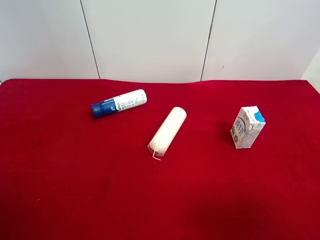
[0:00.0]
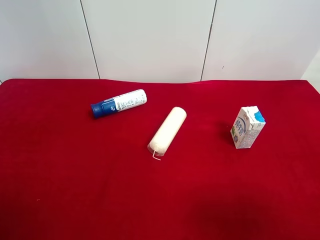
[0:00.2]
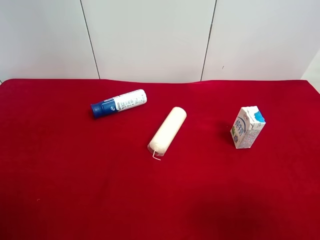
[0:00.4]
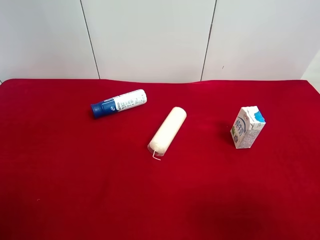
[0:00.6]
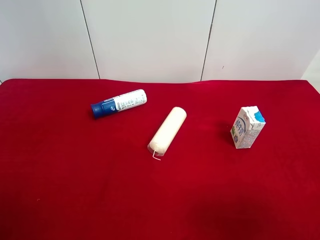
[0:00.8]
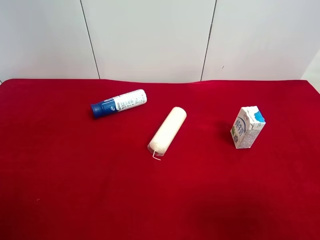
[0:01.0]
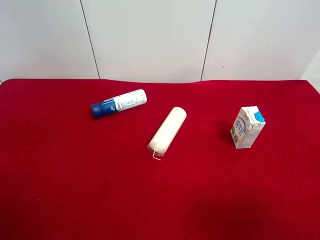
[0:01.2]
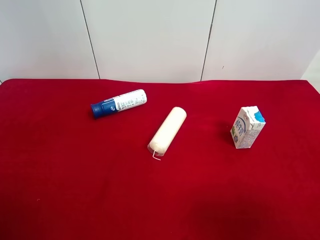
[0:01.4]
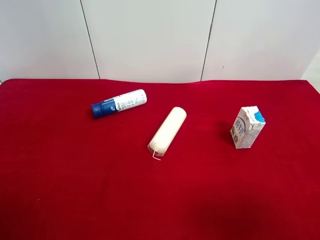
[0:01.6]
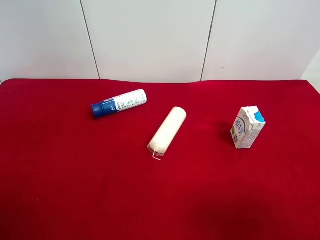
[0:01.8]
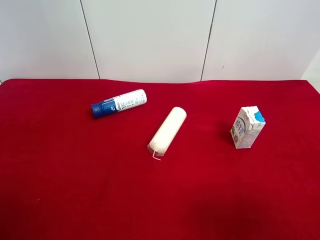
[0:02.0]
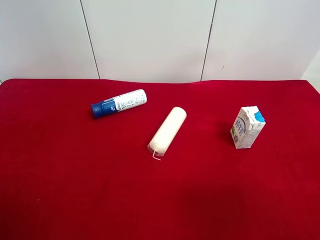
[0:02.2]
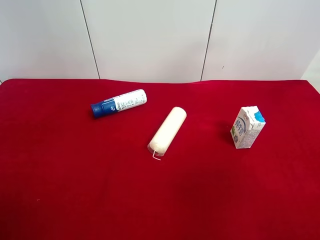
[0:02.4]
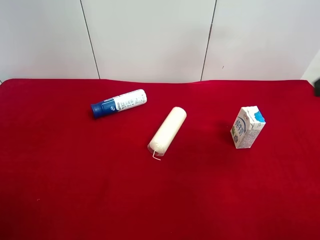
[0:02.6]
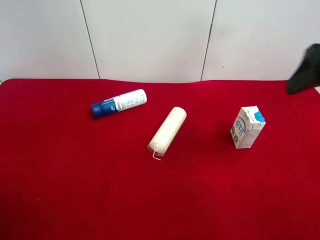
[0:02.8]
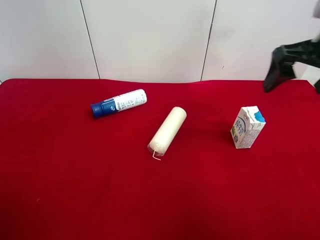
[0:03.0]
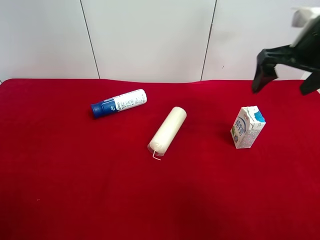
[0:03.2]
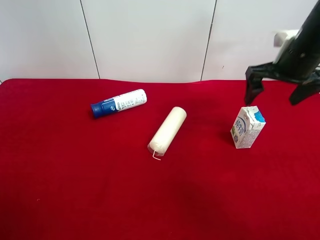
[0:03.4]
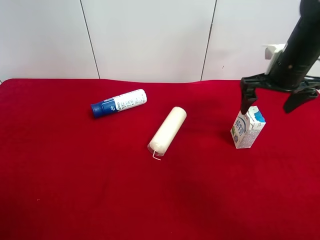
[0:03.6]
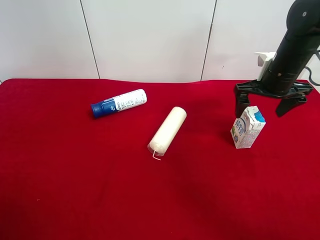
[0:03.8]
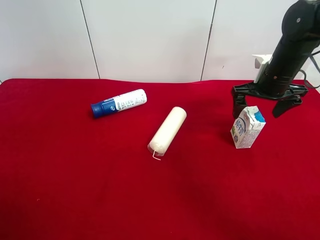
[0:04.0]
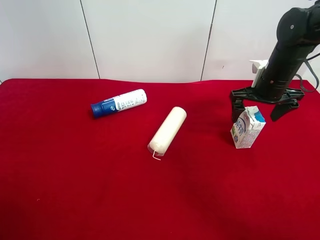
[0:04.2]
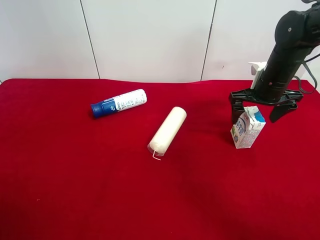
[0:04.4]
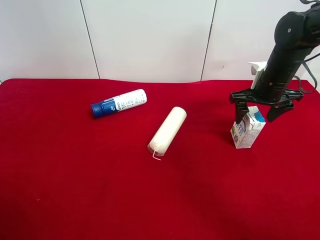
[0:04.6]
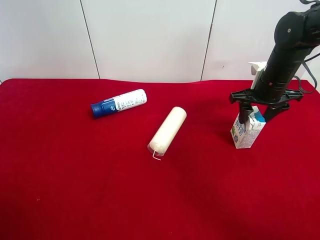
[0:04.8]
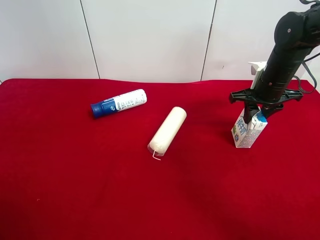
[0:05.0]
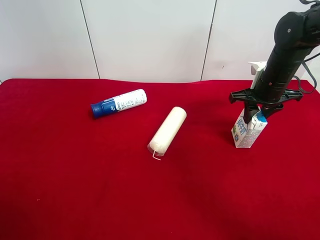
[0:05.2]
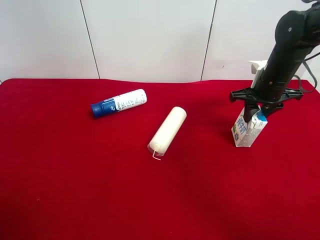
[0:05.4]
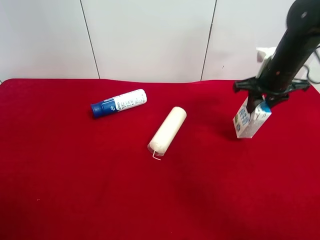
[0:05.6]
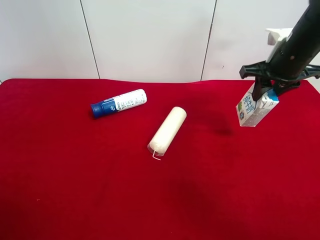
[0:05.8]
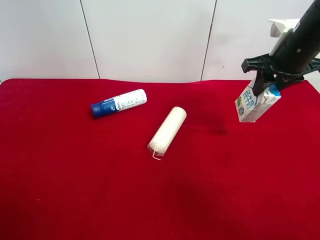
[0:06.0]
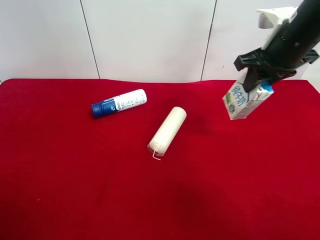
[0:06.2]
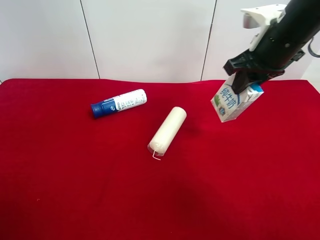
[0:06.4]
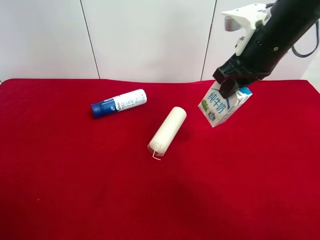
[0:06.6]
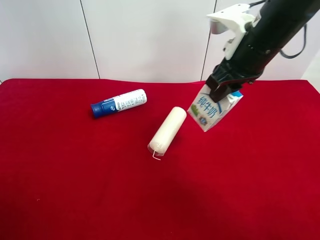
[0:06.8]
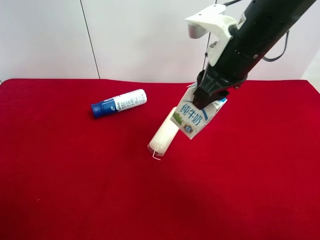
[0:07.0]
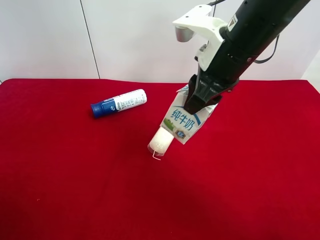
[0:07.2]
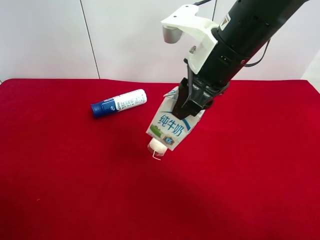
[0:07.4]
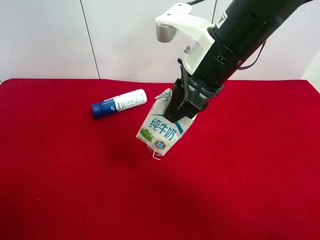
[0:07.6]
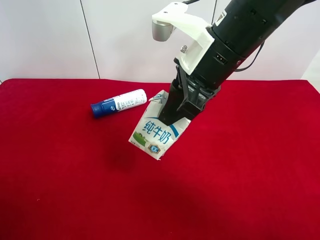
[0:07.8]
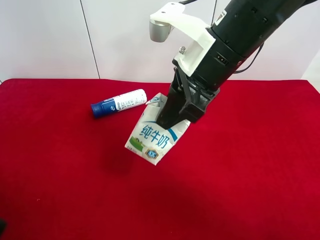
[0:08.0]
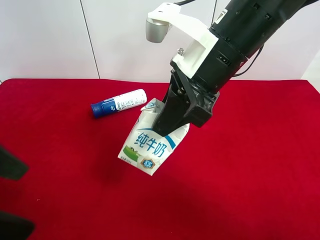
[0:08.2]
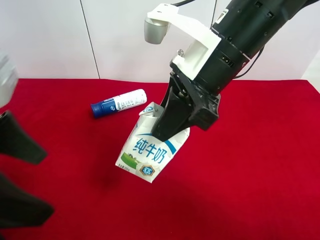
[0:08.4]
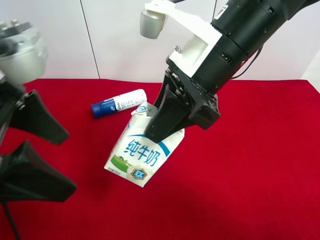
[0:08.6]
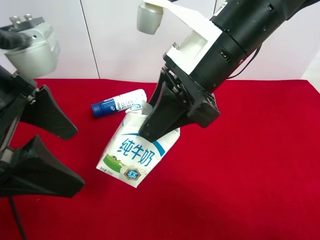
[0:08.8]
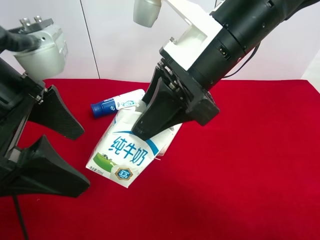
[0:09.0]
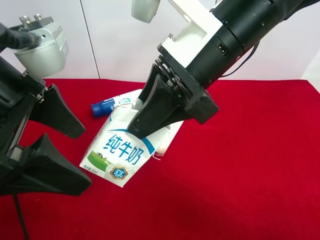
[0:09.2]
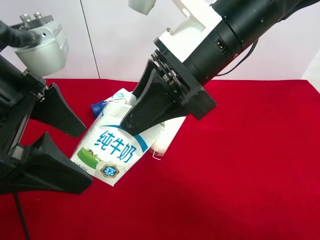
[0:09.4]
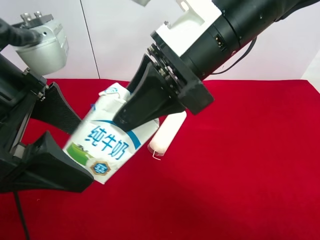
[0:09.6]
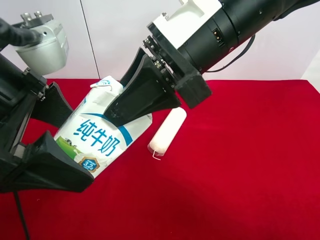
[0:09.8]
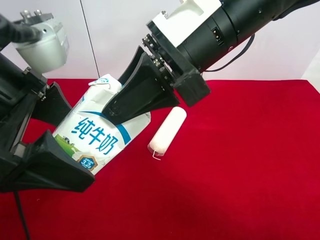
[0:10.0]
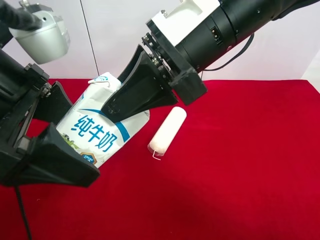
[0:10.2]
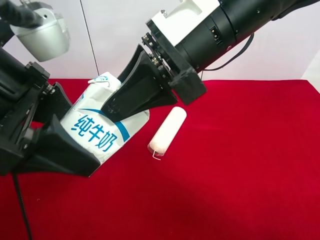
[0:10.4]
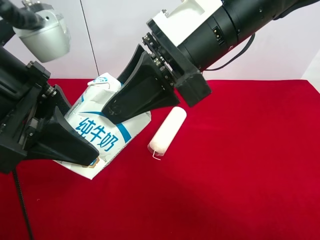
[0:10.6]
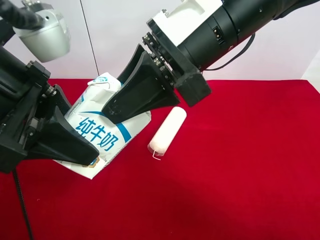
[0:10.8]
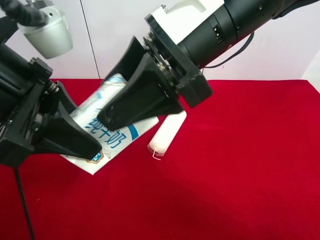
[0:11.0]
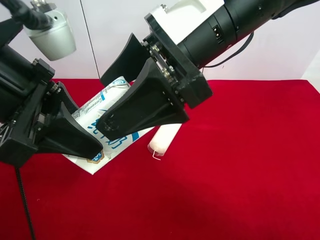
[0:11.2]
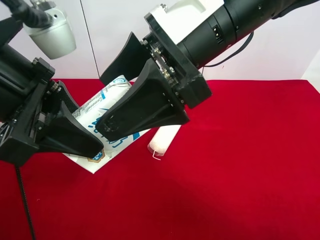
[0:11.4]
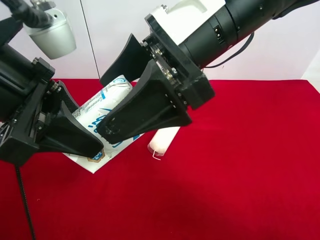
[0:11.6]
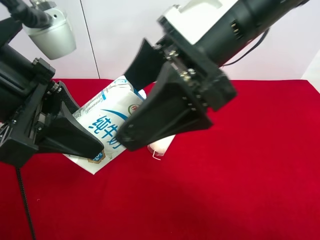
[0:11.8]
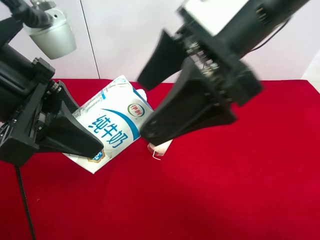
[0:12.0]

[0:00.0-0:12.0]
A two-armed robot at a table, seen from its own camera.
Task of the whole recording: use the right gripper to pick up the item and transfer it from the right gripper to the left gripper.
Step, 0:00.0 to 0:05.0: Use the right gripper to grab the milk on the right side of the table.
Step, 0:05.2 to 0:11.0: Pass the milk to the left gripper.
0:00.0 to 0:01.6: The two grippers keep their place.
0:01.6 to 0:03.0: The right gripper is displaced forward by some 25 cm.
0:03.0 to 0:04.4: The right gripper is displaced downward and forward by roughly 15 cm.
0:04.4 to 0:06.0: The right gripper is displaced upward by roughly 10 cm, and closes up.
0:06.0 to 0:07.6: The right gripper goes some 20 cm to the left and backward, while the left gripper moves roughly 5 cm.
0:07.6 to 0:09.0: The left gripper moves to the right and forward, roughly 15 cm.
0:09.0 to 0:10.4: The left gripper closes its fingers.
0:10.4 to 0:12.0: The right gripper ends up about 5 cm from where it was, and opens its fingers.

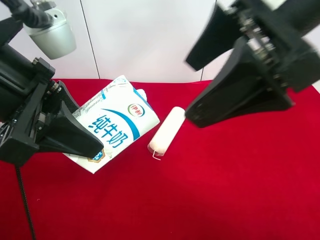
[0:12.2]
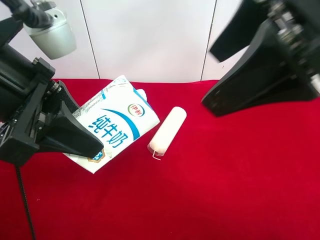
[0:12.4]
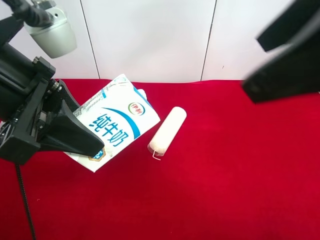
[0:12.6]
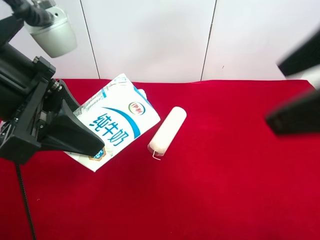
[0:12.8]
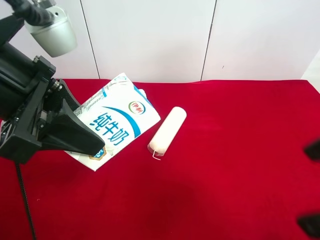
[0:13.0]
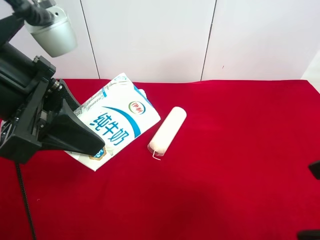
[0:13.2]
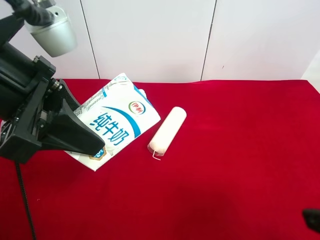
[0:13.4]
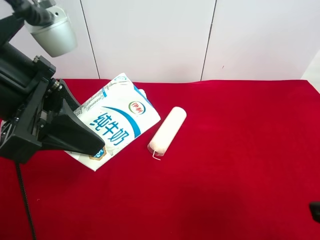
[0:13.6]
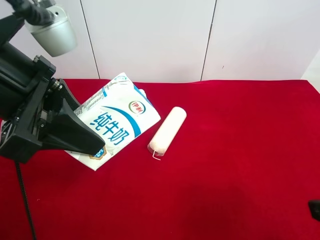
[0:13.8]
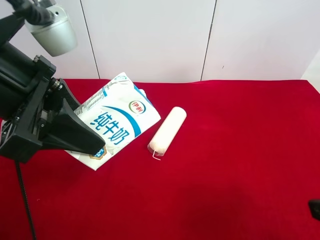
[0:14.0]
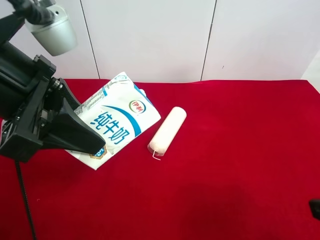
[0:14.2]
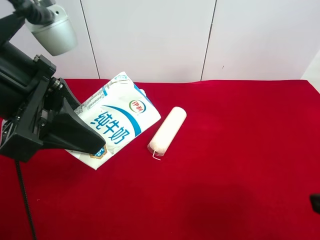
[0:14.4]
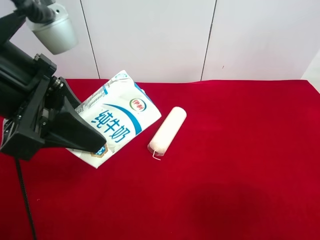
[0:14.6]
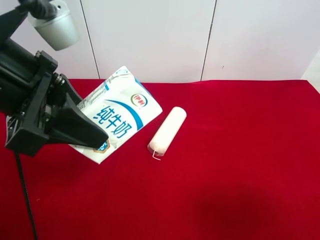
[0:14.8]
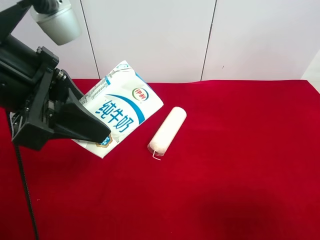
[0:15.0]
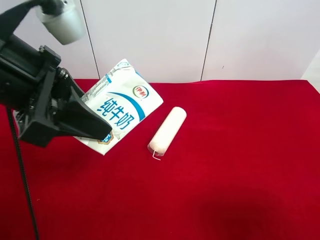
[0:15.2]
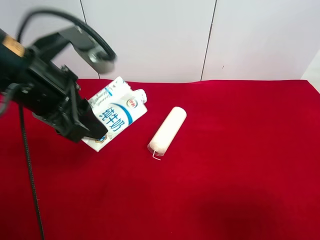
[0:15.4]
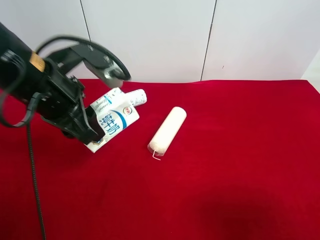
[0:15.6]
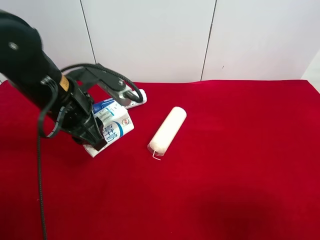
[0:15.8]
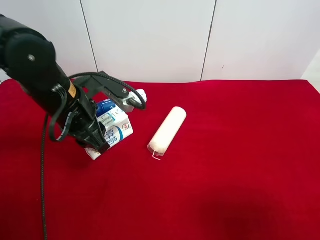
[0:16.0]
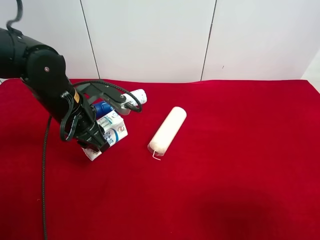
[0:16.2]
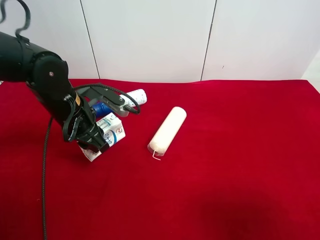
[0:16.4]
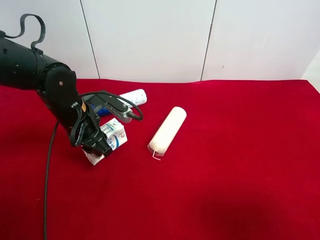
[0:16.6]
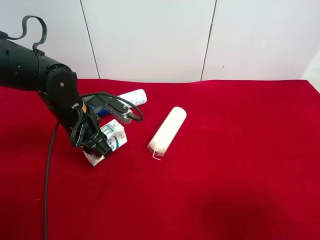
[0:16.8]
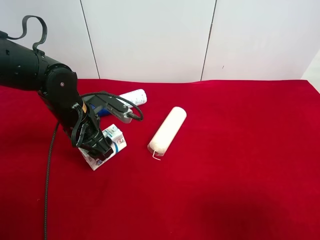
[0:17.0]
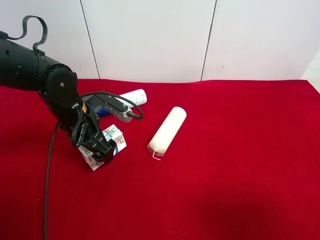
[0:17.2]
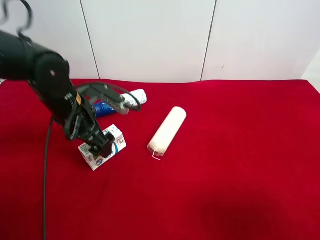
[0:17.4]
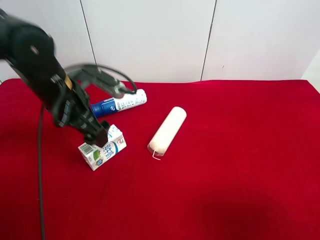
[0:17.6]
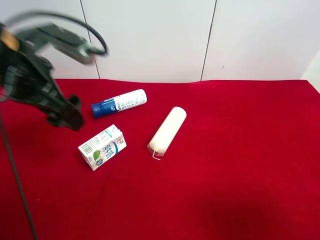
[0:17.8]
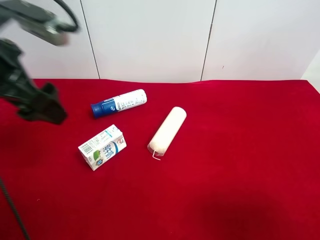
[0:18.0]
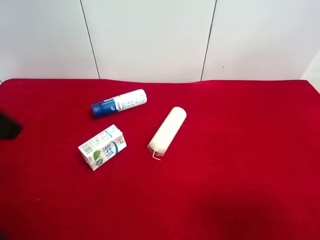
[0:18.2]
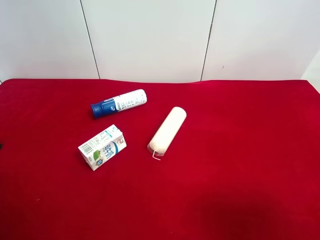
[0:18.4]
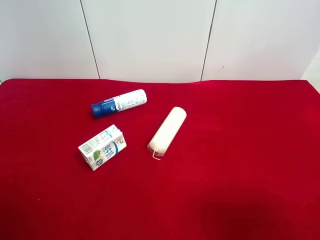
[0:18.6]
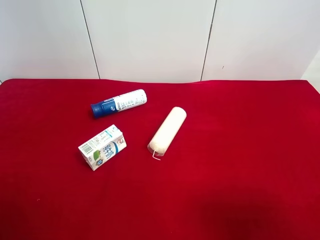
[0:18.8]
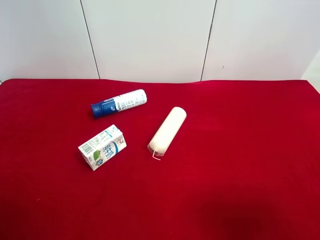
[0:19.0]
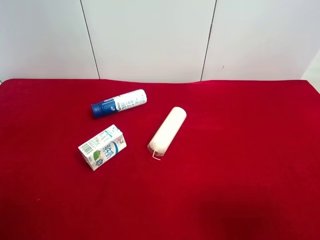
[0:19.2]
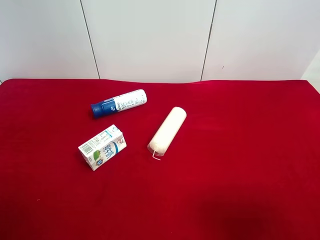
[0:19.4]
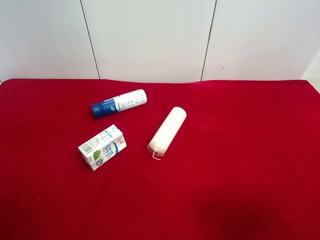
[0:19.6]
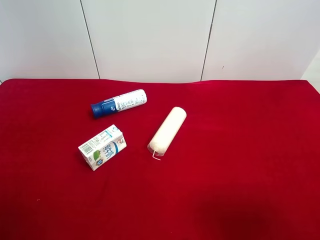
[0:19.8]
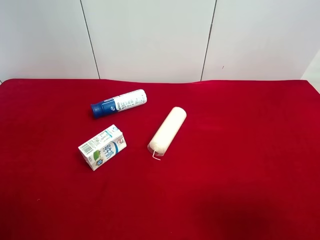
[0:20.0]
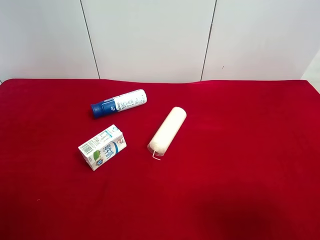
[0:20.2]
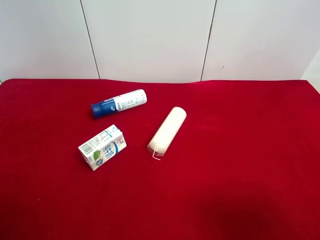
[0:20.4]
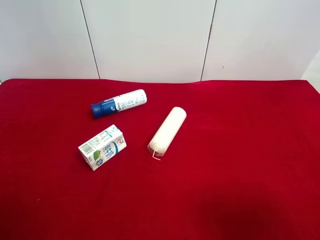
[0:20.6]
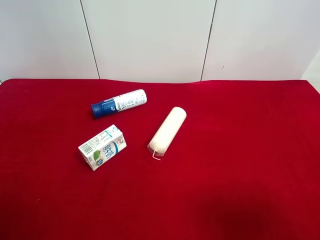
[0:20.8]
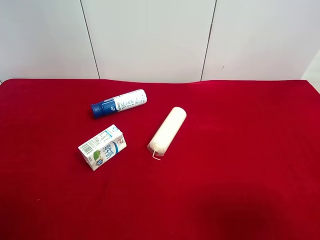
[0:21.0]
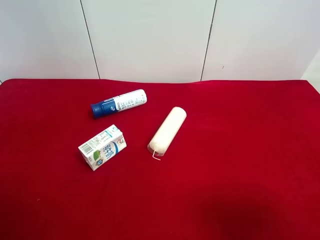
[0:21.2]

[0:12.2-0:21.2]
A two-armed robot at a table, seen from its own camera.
Task of the whole recording: use the right gripper to pick up the item and transfer it from the right gripper to the left gripper.
Step, 0:12.2 to 0:17.4: The left gripper places milk on the left side of the table.
0:12.2 to 0:13.8: The right gripper is displaced to the right, backward and downward by roughly 25 cm.
0:15.2 to 0:16.6: The left gripper shifts about 20 cm downward and forward.
0:16.6 to 0:18.2: The left gripper is displaced upward, backward and to the left by some 25 cm, and opens up.
